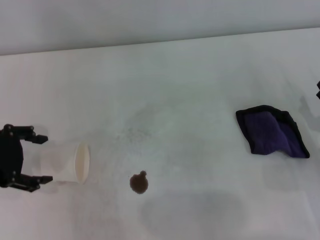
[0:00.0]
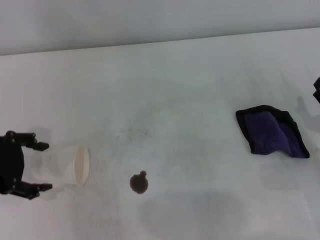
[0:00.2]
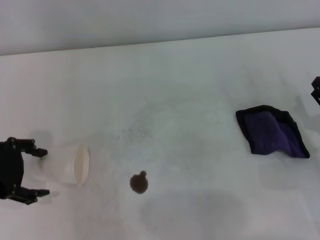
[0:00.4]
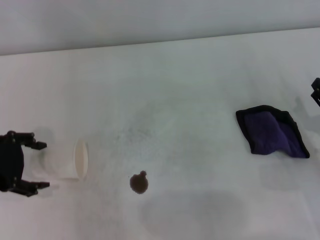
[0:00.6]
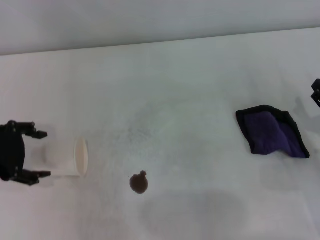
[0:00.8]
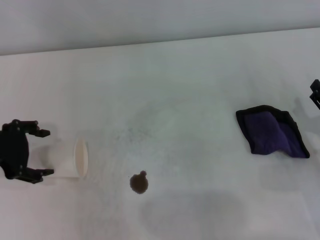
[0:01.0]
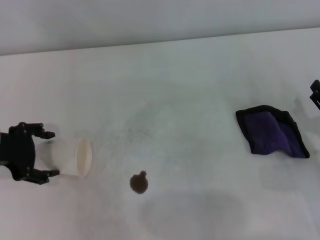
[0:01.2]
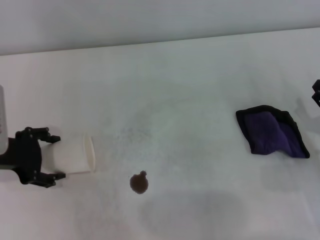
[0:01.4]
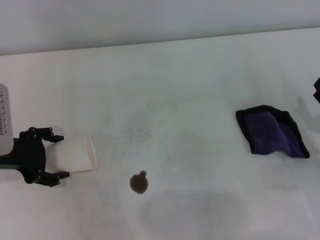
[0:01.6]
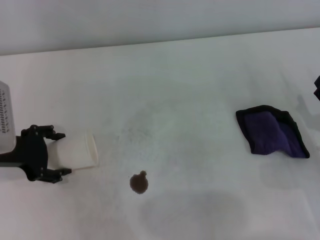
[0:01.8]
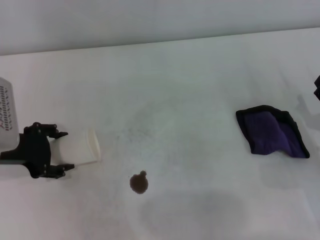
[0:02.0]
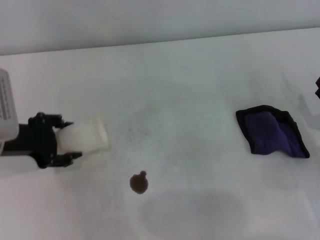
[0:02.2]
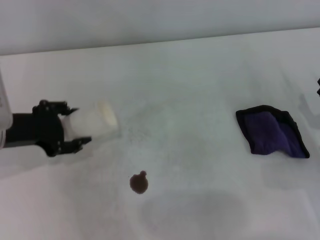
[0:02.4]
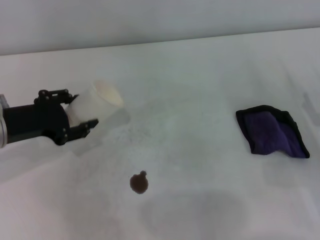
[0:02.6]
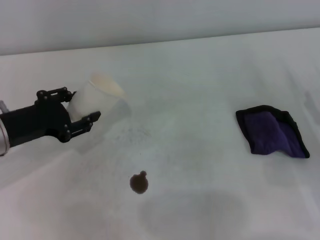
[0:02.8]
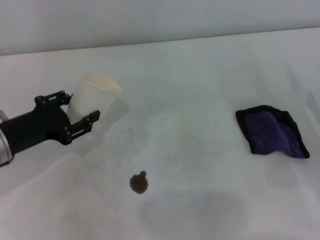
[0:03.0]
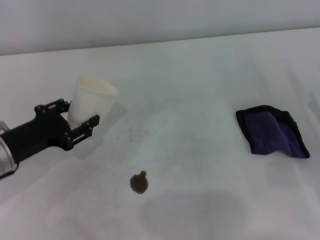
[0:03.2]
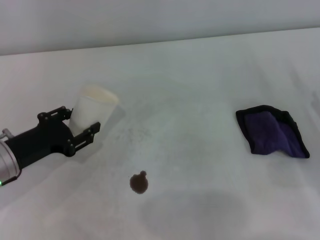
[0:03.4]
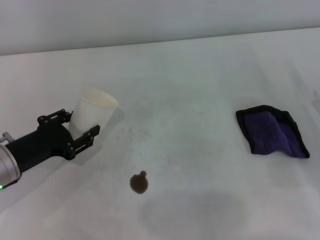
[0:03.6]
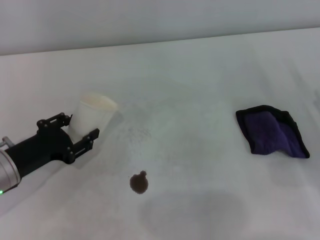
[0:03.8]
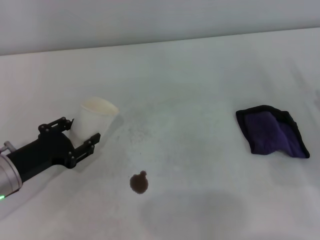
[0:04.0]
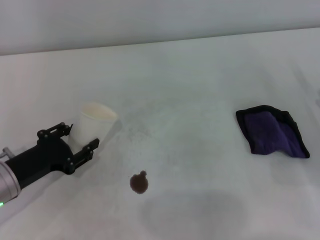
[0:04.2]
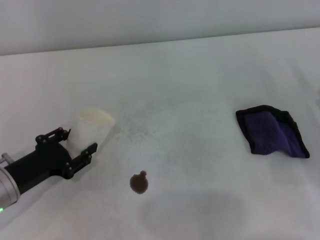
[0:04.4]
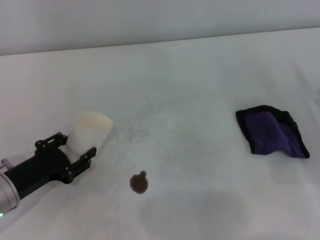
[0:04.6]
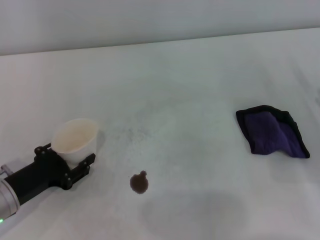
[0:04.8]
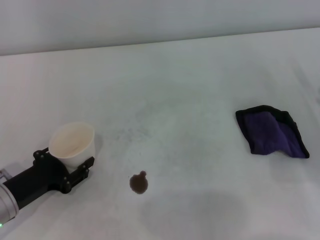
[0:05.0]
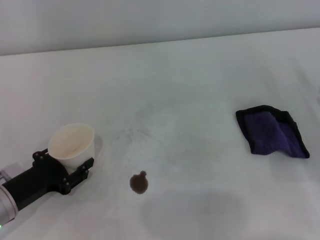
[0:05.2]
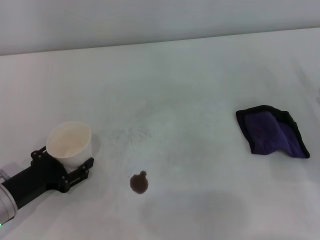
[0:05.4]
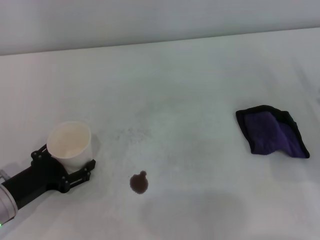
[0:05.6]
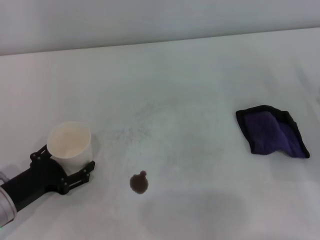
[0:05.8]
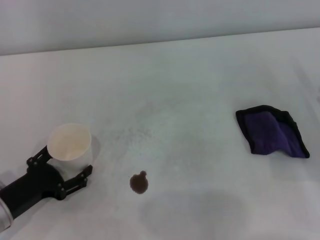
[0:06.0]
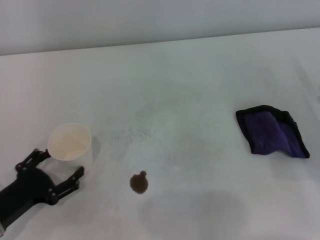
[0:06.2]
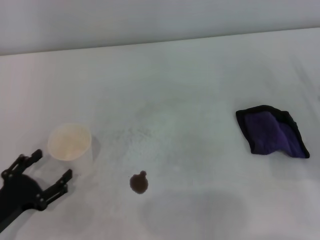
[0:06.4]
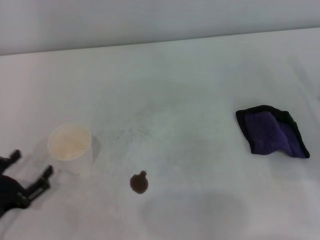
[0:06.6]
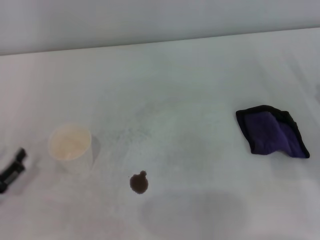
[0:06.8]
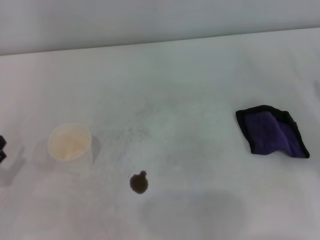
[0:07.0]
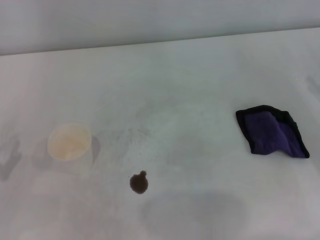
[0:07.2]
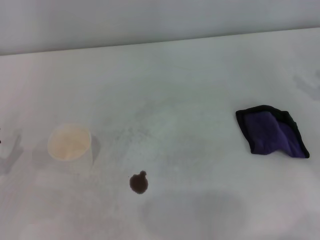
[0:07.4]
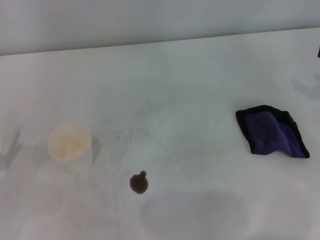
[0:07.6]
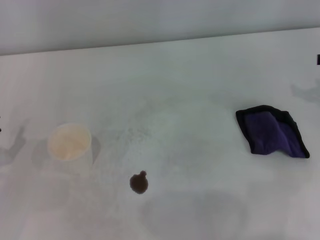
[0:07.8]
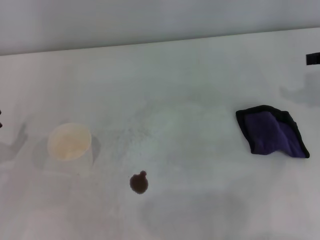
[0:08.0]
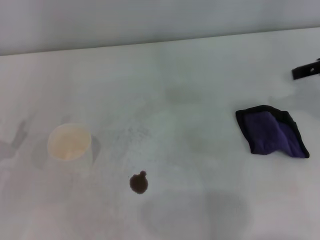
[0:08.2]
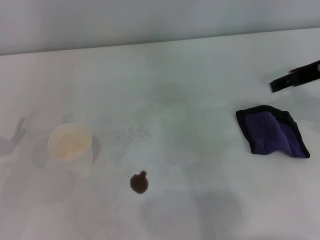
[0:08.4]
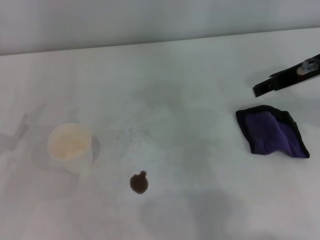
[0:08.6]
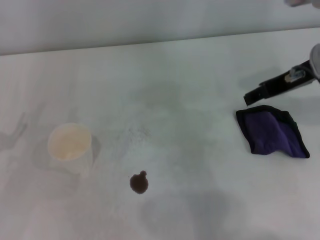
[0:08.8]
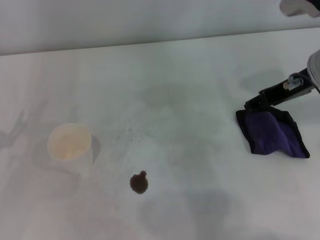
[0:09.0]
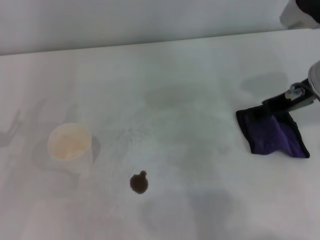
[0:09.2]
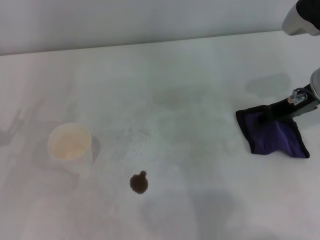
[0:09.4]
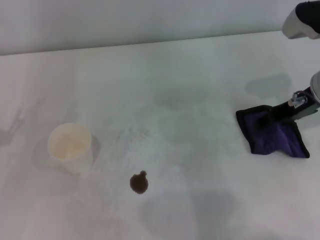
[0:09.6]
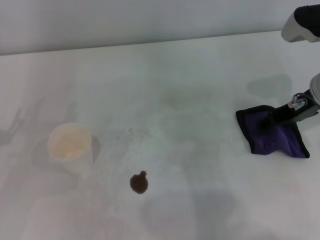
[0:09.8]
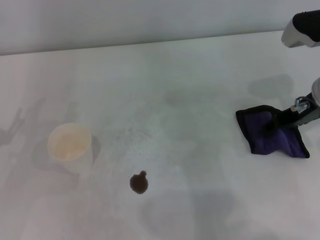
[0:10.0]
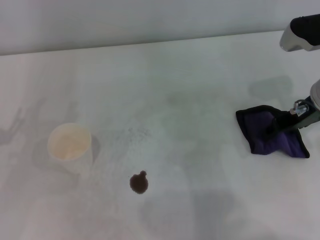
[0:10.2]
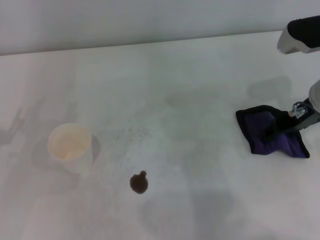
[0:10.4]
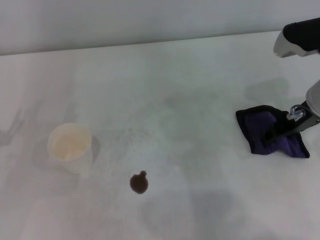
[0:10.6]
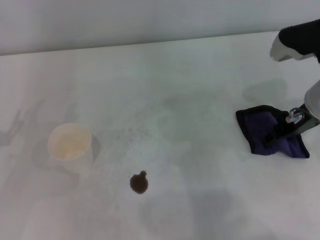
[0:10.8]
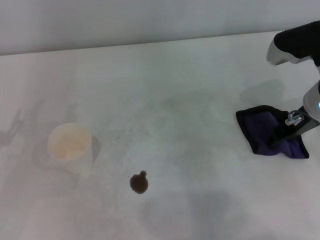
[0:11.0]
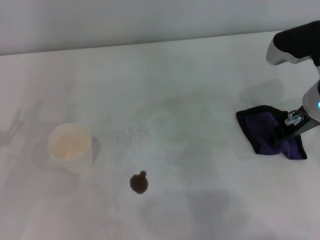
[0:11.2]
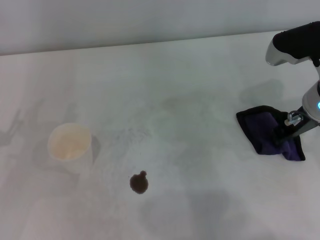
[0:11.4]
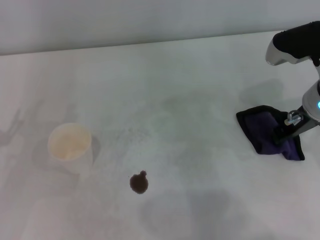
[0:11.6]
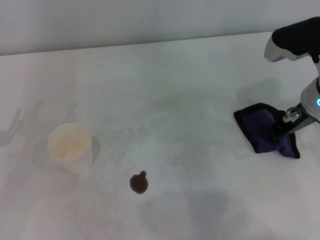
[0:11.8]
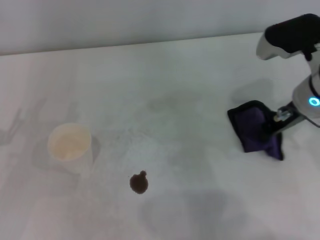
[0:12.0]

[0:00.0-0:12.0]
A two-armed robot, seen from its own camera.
Step, 0:02.0 to 0:05.4: Stand the paper cup upright with the left gripper.
Step, 0:05.6 to 0:11.6: Grasp the rag with the right gripper.
0:00.0 to 0:01.6: The left gripper moves approximately 5 cm.
0:01.6 to 0:03.0: The left gripper closes.
0:03.0 to 0:04.4: The left gripper travels downward by roughly 5 cm.
0:04.4 to 0:06.0: The left gripper opens.
0:06.0 to 0:07.6: The left gripper moves to the left, approximately 5 cm.
0:07.6 to 0:09.0: The right gripper travels to the left by roughly 15 cm.
0:09.0 to 0:10.4: The right gripper changes place by approximately 5 cm.
0:10.4 to 0:12.0: The right gripper closes its fingers.

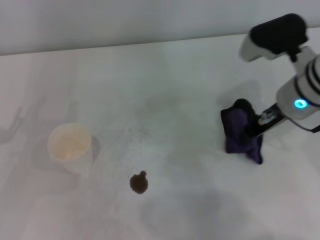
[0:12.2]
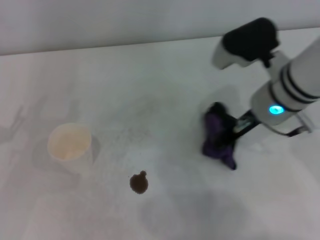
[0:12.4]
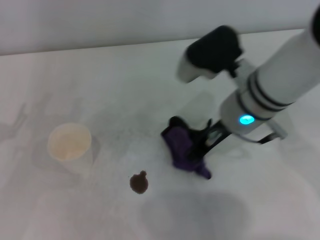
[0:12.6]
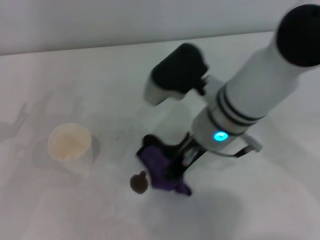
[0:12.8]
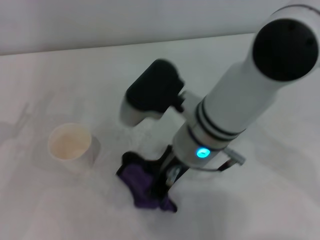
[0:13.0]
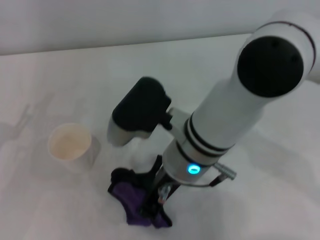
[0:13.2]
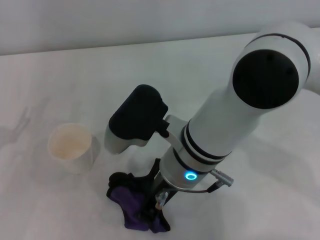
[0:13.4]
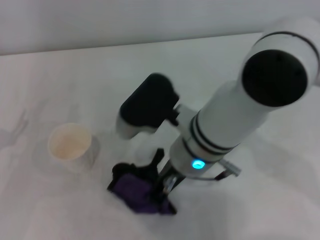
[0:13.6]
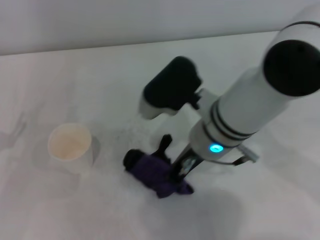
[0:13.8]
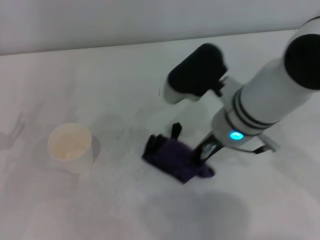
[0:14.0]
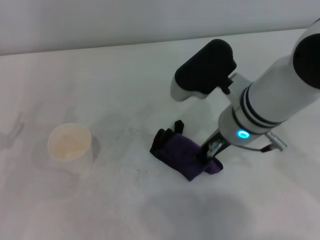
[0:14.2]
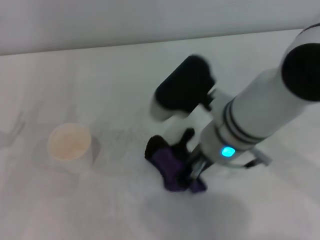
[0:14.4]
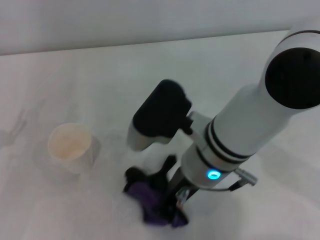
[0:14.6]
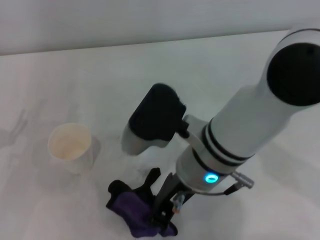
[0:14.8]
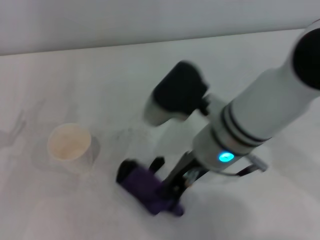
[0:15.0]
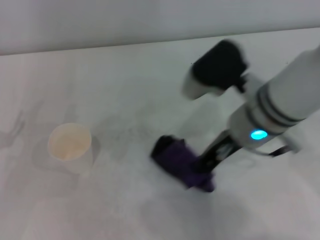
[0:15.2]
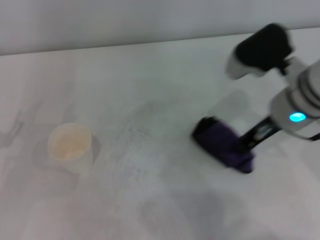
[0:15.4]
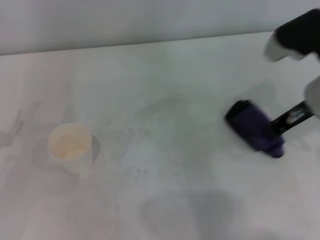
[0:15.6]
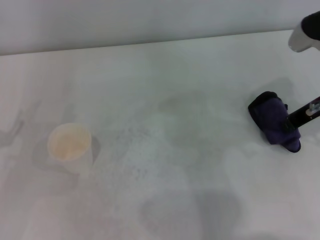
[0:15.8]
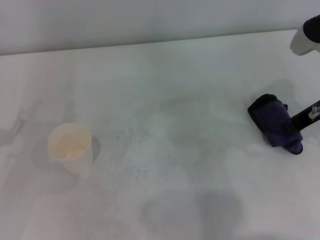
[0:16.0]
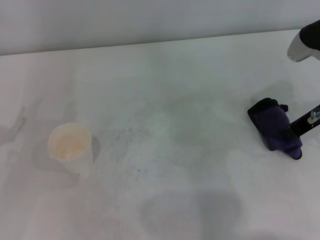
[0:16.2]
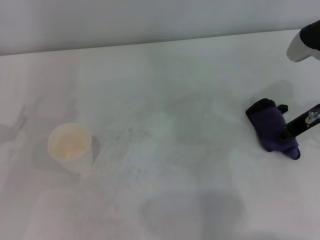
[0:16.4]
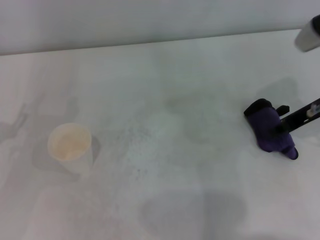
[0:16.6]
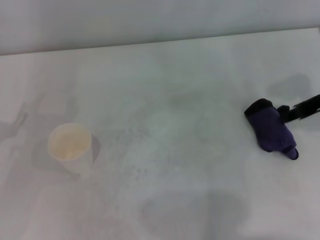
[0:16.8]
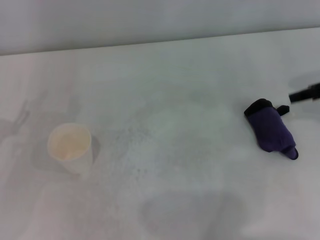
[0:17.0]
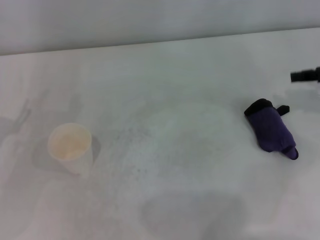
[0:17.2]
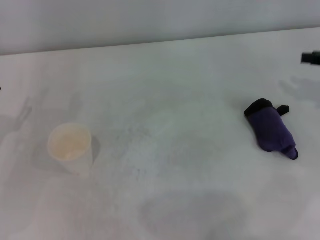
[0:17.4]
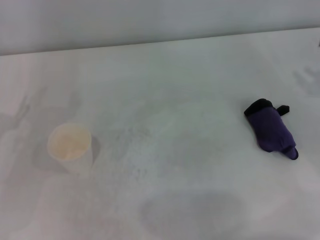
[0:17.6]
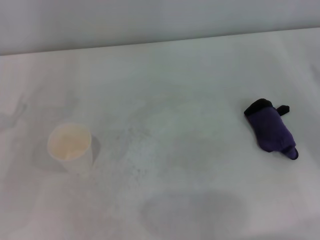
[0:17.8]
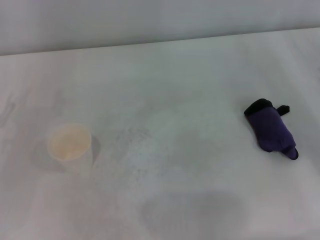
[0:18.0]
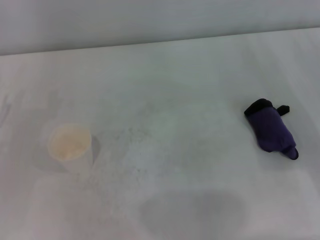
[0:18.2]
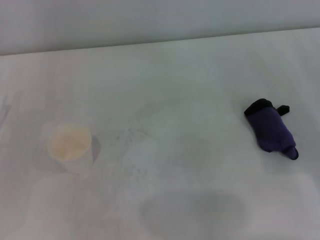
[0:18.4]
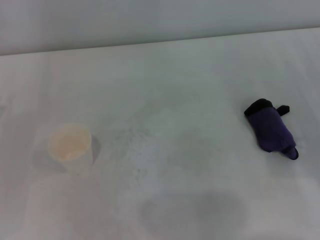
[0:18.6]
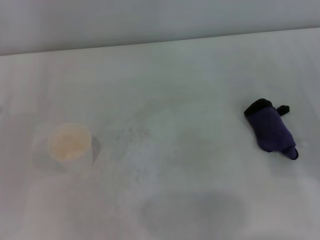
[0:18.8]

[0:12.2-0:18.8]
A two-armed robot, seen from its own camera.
Step, 0:12.2 to 0:15.6: Wipe the stains off the table with the right gripper.
Step, 0:15.8 to 0:16.4: Place the rag on the table with the right gripper.
0:12.2 to 0:13.8: The right gripper is displaced to the left by some 10 cm.
0:13.8 to 0:15.4: The right gripper goes some 10 cm to the right.
0:15.4 to 0:17.2: The right gripper moves to the right, some 15 cm, and opens up.
0:17.2 to 0:18.8: The right gripper shifts approximately 15 cm downward and backward.
